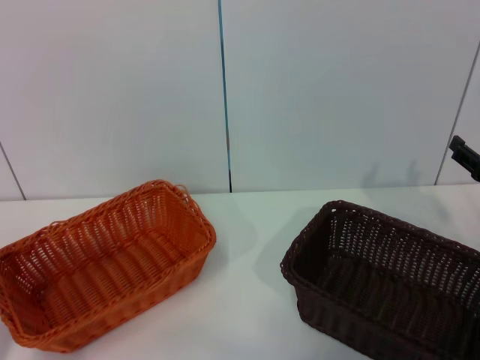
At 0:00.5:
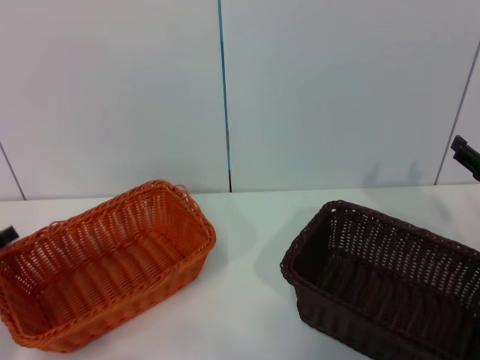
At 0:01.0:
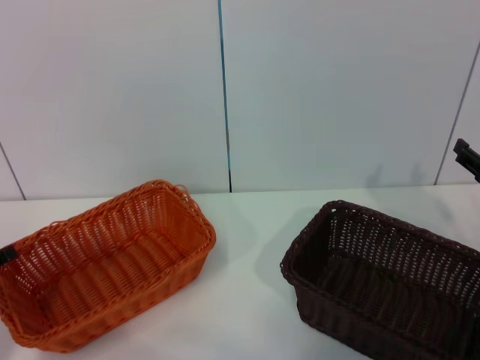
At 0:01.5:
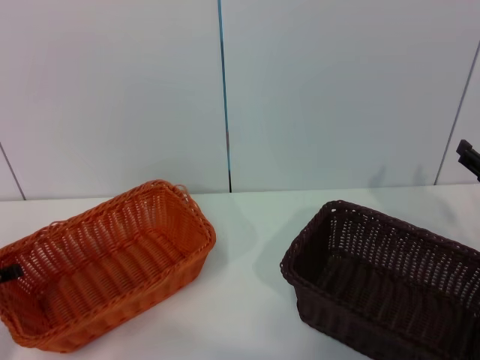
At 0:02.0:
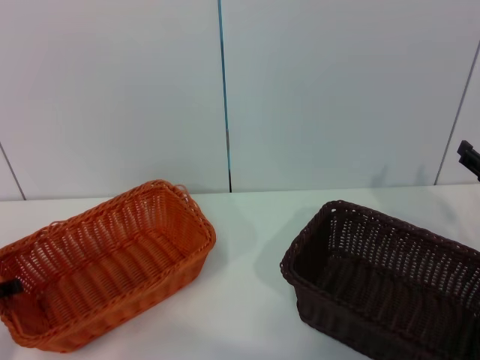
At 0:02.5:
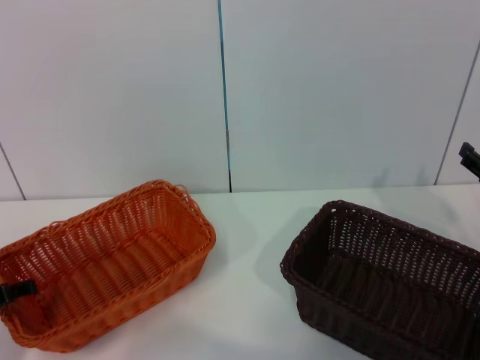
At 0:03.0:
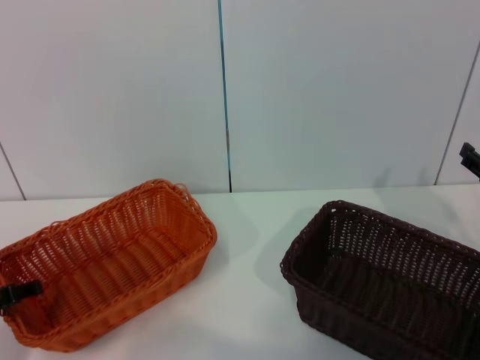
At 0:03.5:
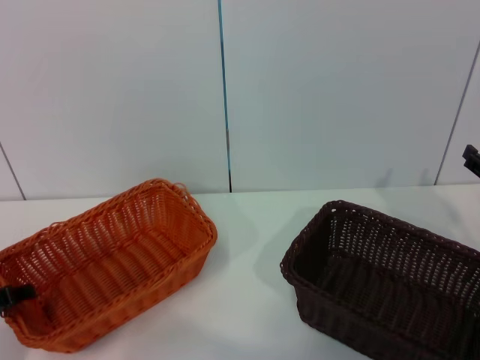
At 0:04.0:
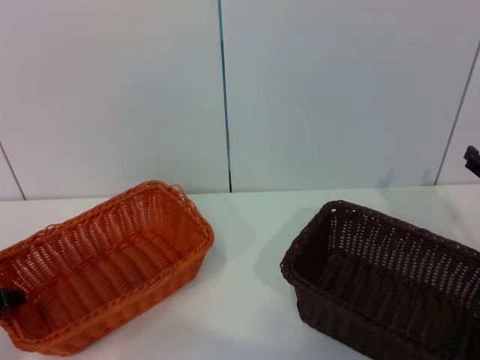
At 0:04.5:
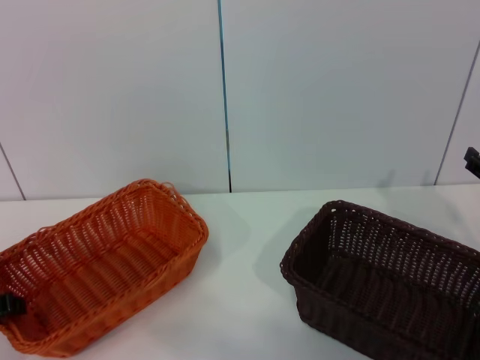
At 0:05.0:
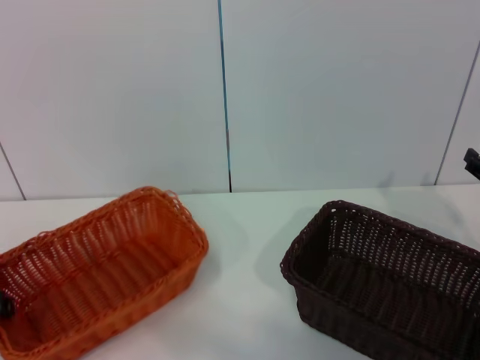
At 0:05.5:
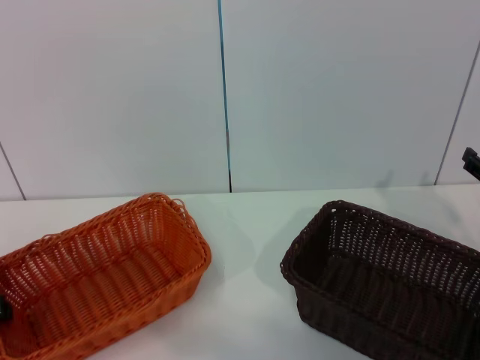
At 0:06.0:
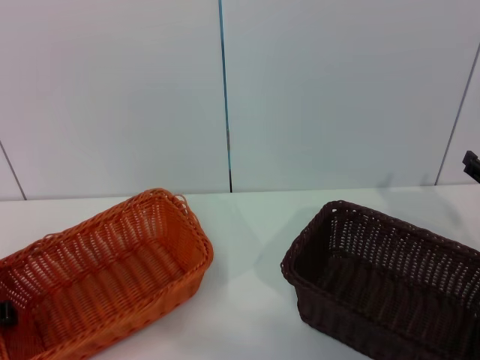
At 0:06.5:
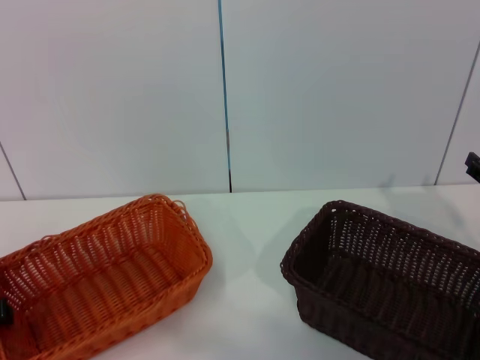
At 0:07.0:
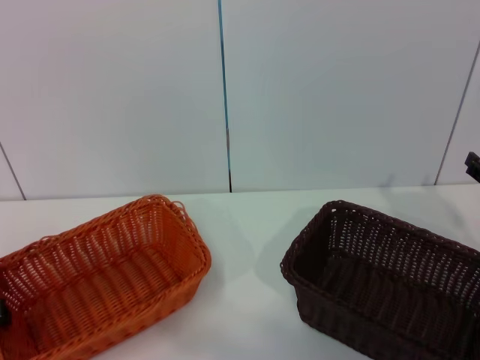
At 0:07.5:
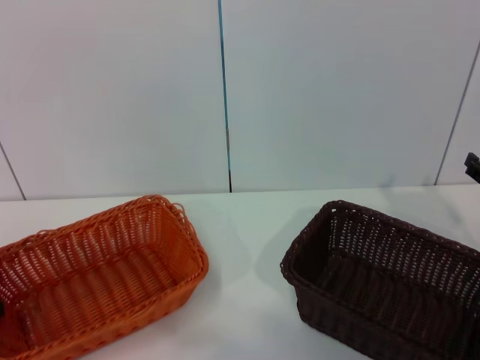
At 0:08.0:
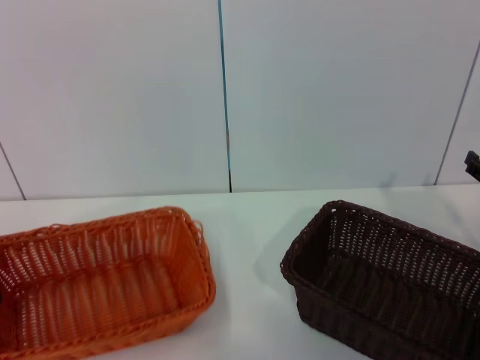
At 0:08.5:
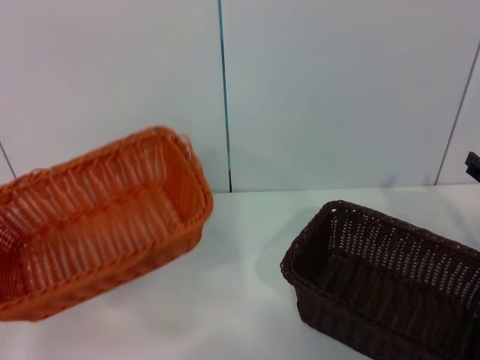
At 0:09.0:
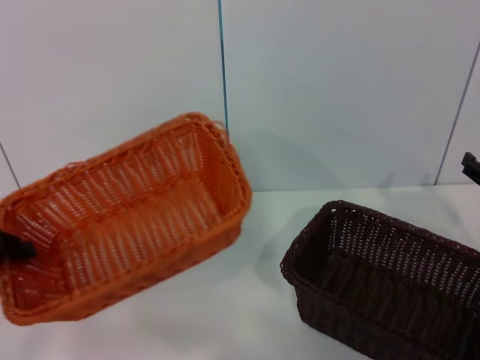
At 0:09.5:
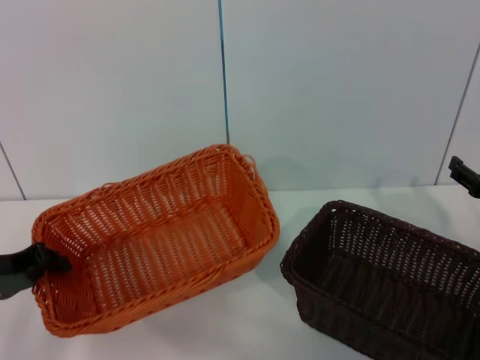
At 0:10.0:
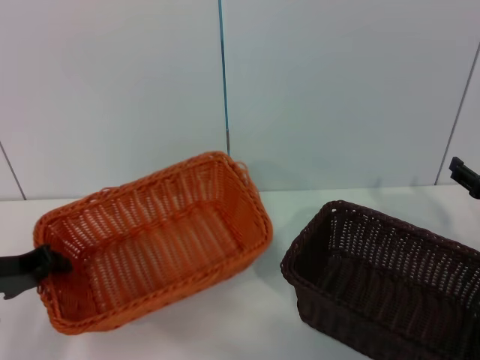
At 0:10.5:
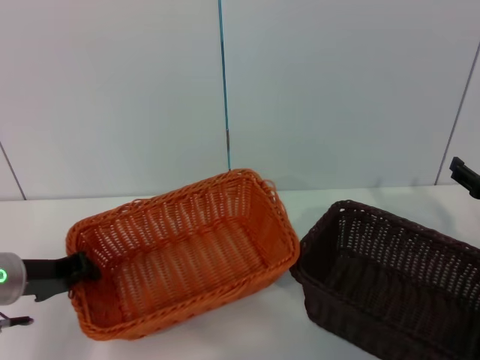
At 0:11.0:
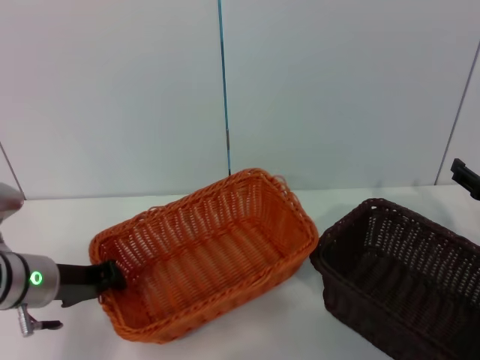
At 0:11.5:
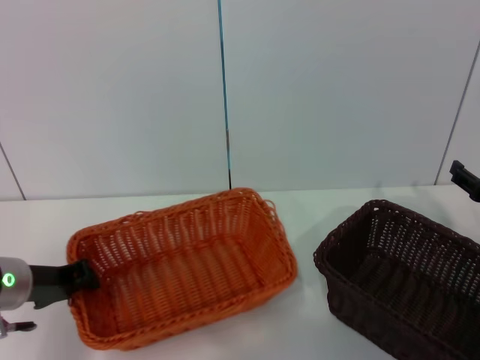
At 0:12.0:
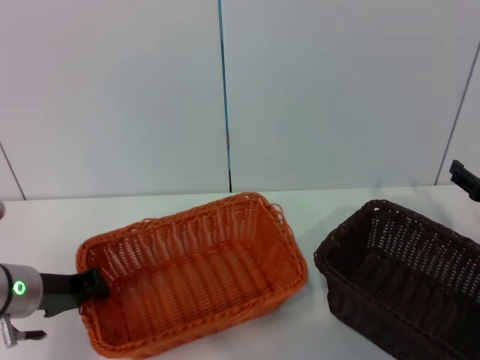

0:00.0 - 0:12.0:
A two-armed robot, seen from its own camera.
Step, 0:00.0 - 0:08.5: Pick up the light basket with the left gripper.
0:02.0 - 0:04.0: The left gripper closes its fingers.
0:04.0 - 0:06.0: The left gripper closes.
0:06.0 - 0:08.0: The left gripper ends up approximately 5 cm from where it was.
0:08.0 - 0:10.0: The left gripper shifts approximately 5 cm to the right.
0:10.0 - 0:12.0: The left gripper goes roughly 5 cm to the right.

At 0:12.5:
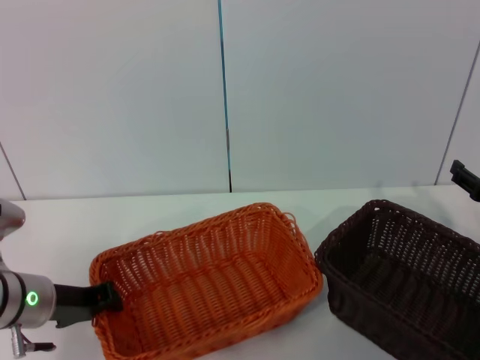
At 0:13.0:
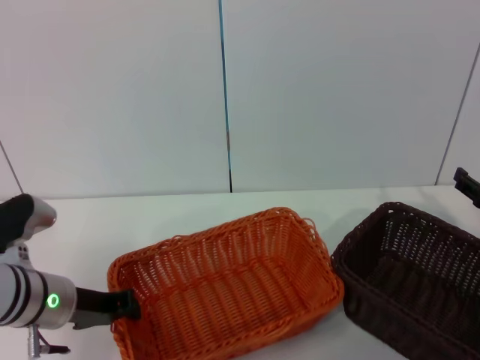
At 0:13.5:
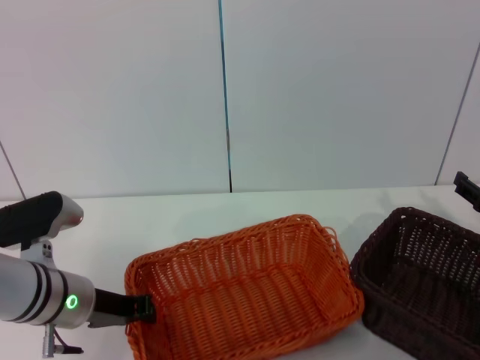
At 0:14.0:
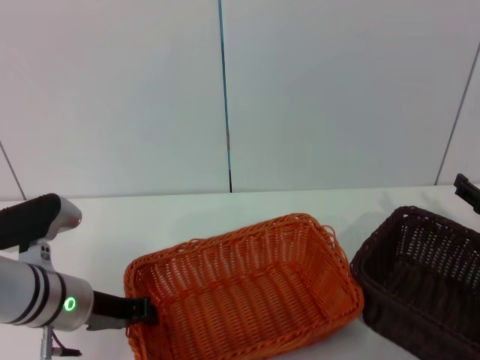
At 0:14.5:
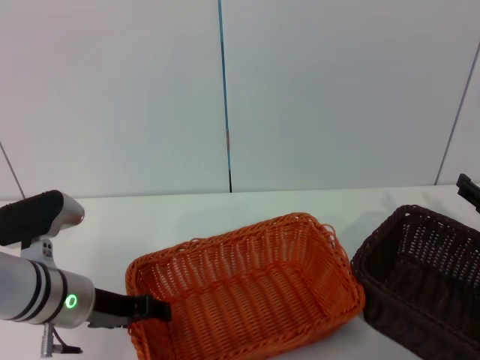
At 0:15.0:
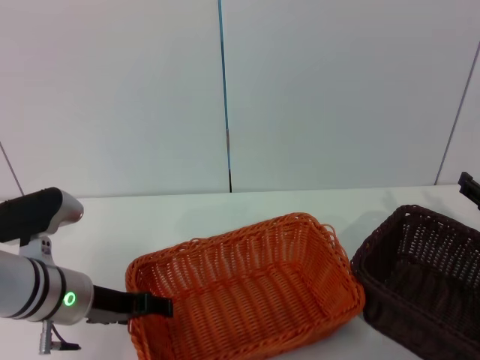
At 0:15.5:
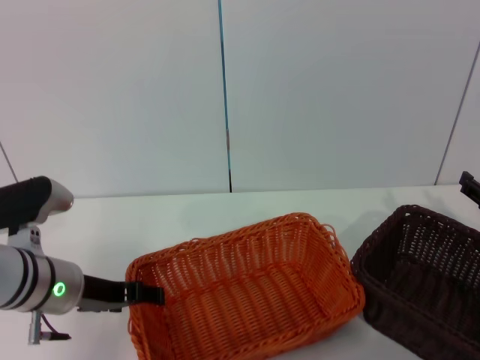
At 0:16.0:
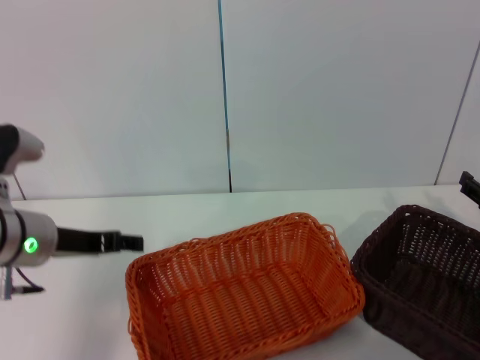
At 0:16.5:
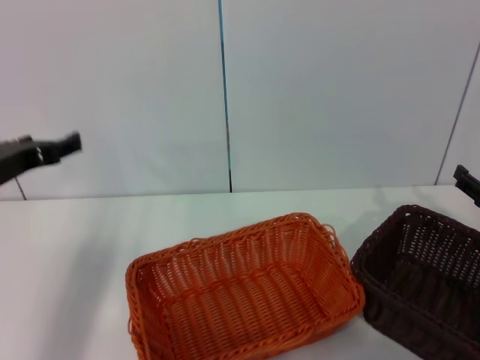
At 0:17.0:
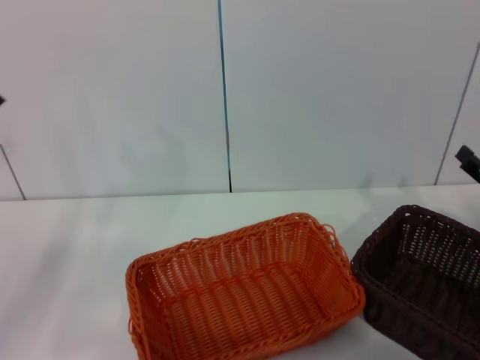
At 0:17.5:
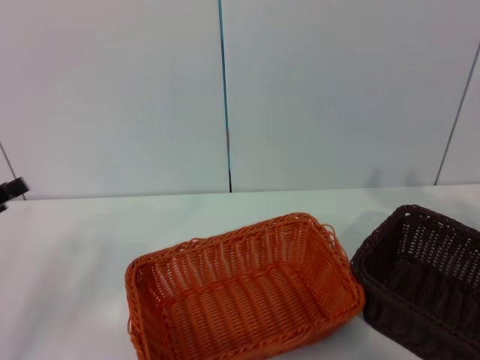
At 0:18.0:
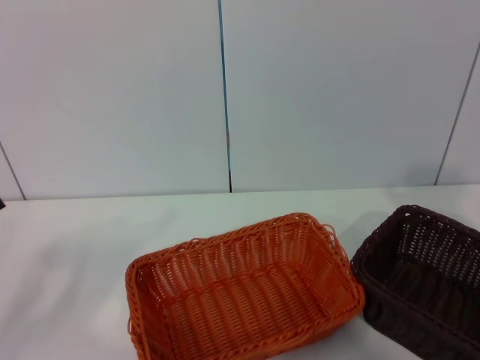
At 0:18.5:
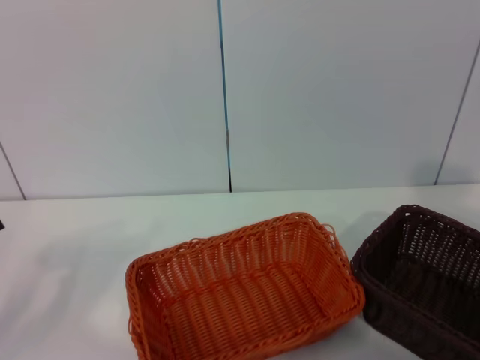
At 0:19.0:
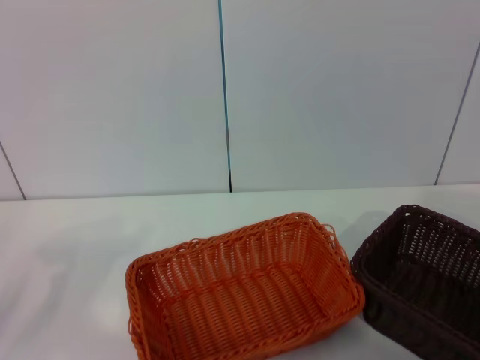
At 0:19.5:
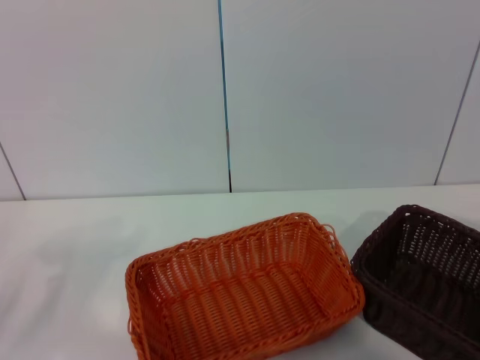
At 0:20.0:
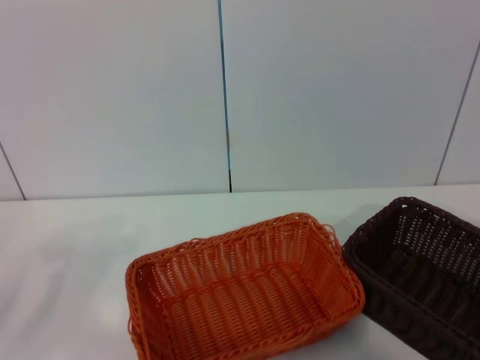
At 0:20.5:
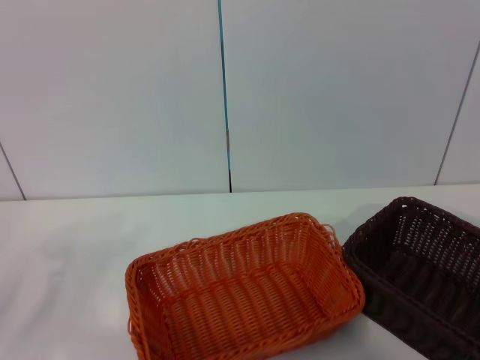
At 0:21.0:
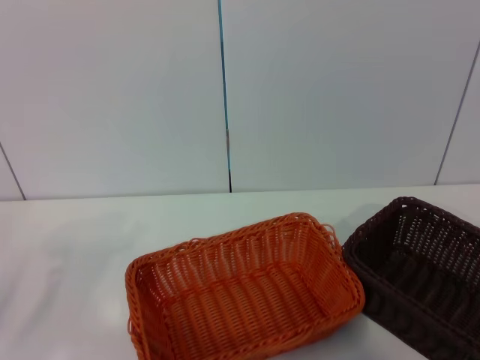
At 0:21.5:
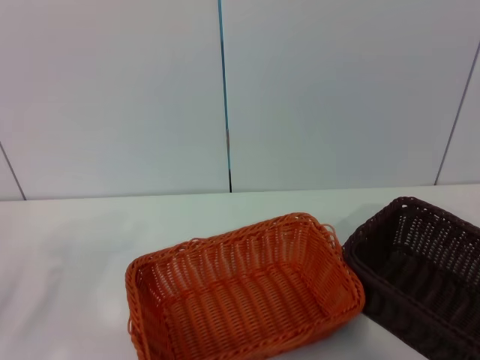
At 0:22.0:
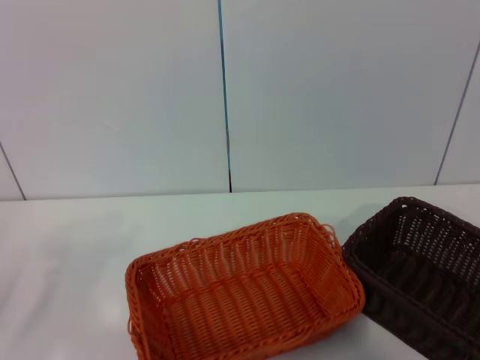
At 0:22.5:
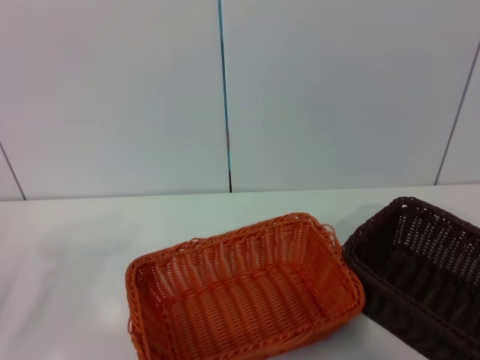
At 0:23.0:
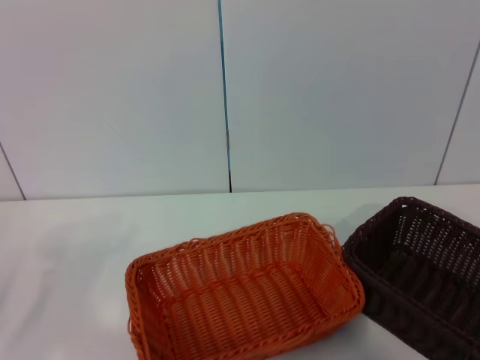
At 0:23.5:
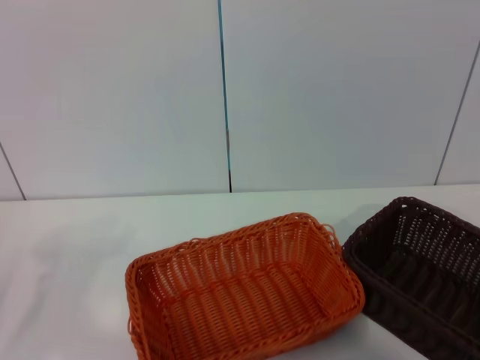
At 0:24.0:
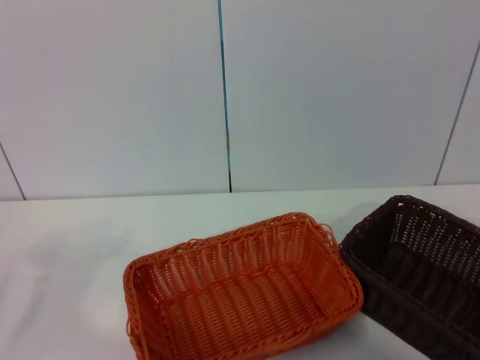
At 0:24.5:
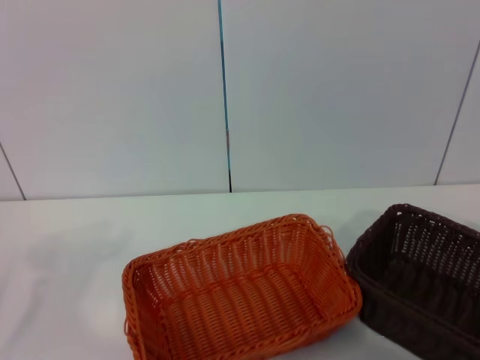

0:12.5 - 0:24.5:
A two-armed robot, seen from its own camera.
0:12.5 - 0:14.5: The left gripper opens its fingers.
0:14.5 - 0:16.5: The left gripper goes approximately 10 cm upward and to the left.
0:16.5 - 0:18.5: The left gripper shifts approximately 15 cm to the left, backward and downward. The right gripper moves upward and backward, about 15 cm.
0:18.5 - 0:20.5: The right gripper moves backward, roughly 5 cm.
0:22.5 - 0:24.5: The right gripper closes.

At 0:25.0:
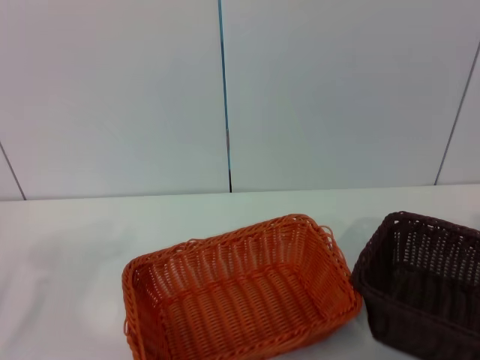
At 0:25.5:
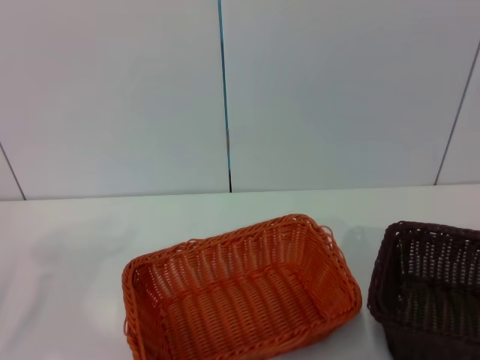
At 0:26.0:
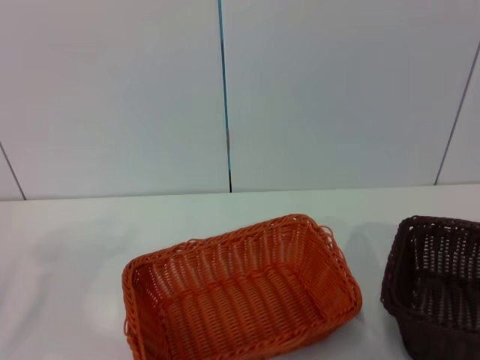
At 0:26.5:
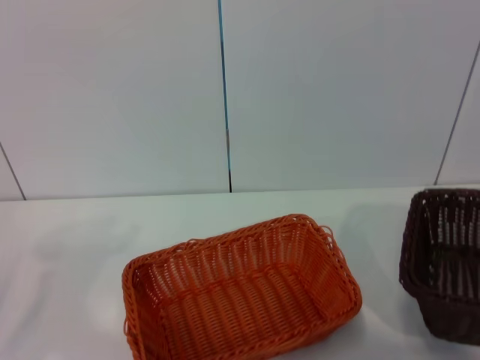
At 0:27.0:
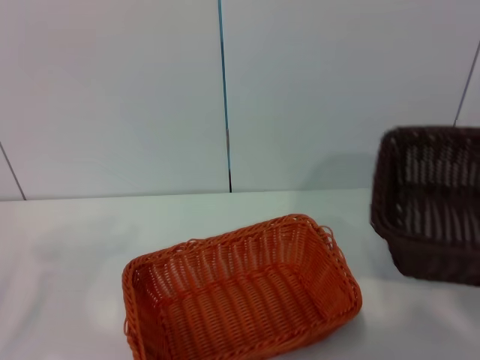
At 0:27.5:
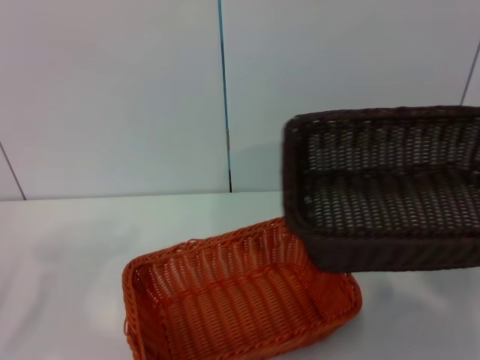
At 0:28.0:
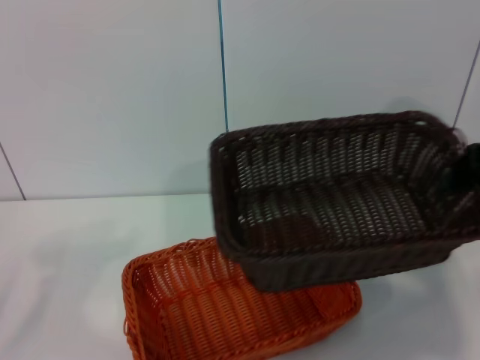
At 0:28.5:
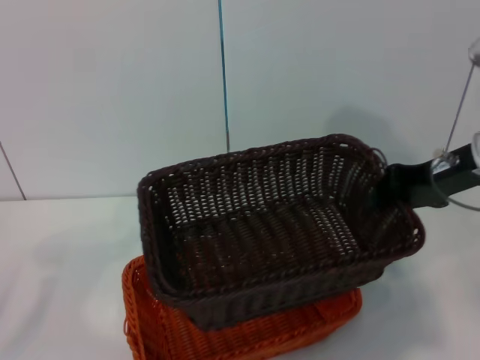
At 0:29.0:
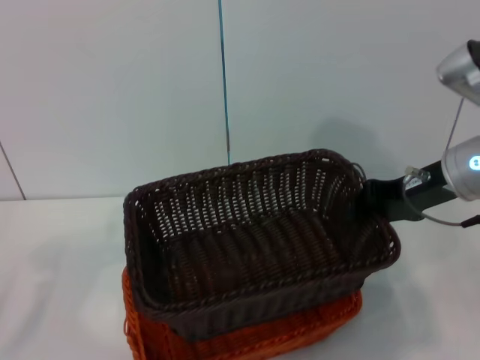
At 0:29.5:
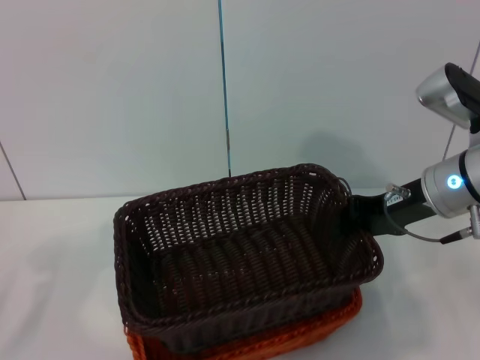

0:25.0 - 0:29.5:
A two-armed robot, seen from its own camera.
0:25.0 - 0:27.0: The right gripper travels upward by some 10 cm.
0:27.0 - 0:29.5: The right gripper goes roughly 25 cm to the left and forward.
